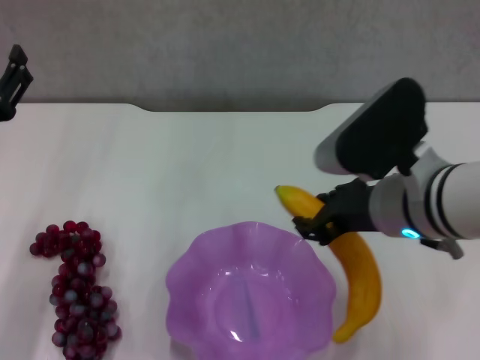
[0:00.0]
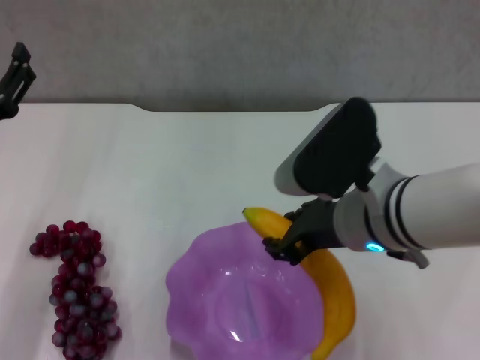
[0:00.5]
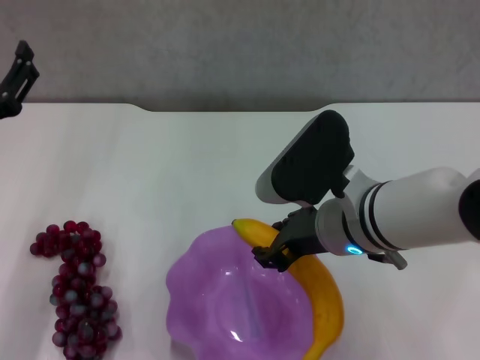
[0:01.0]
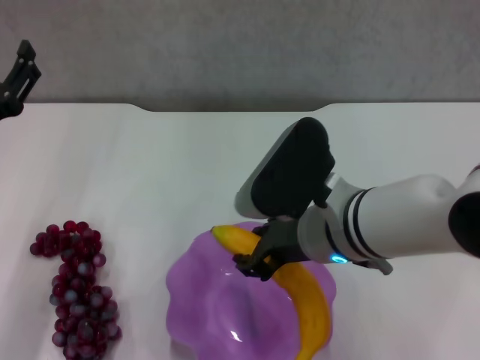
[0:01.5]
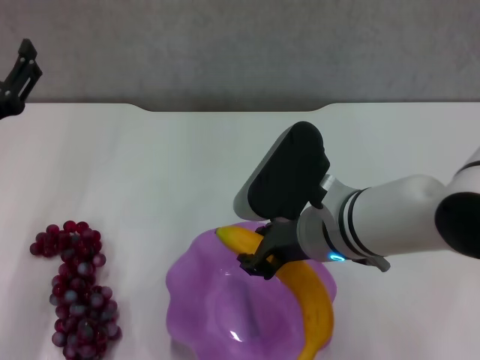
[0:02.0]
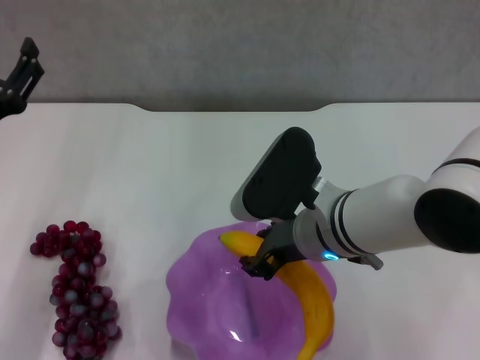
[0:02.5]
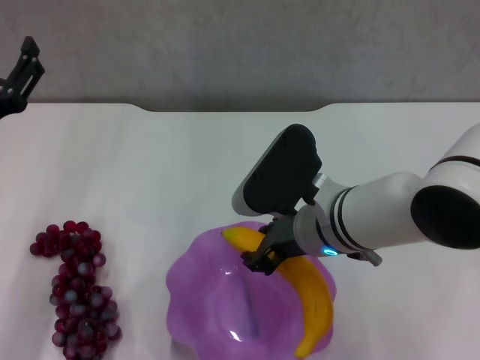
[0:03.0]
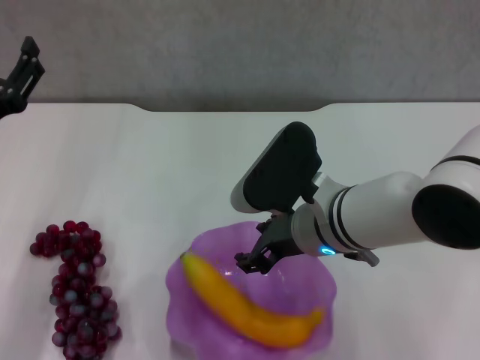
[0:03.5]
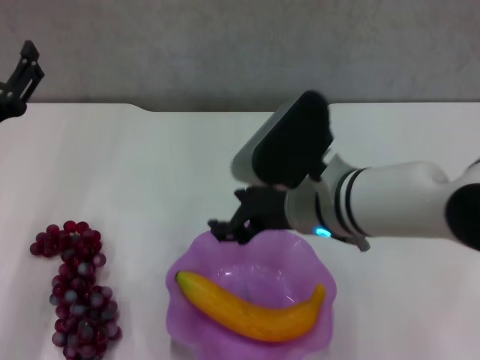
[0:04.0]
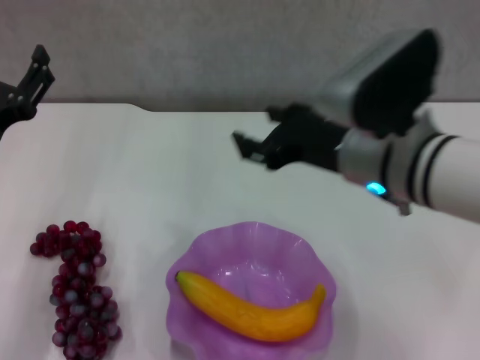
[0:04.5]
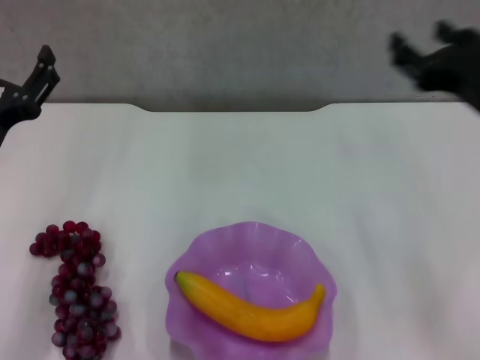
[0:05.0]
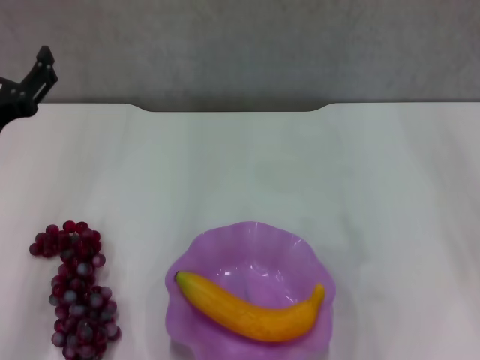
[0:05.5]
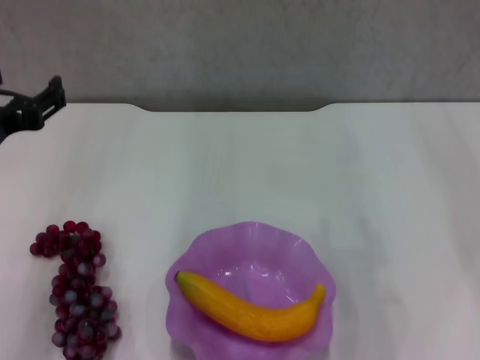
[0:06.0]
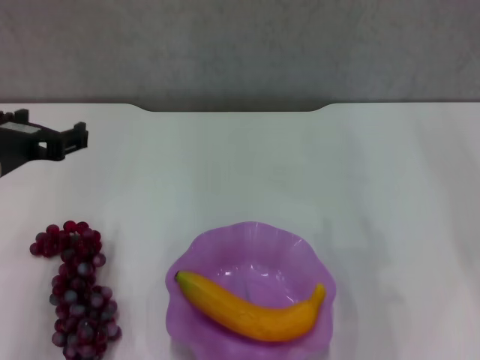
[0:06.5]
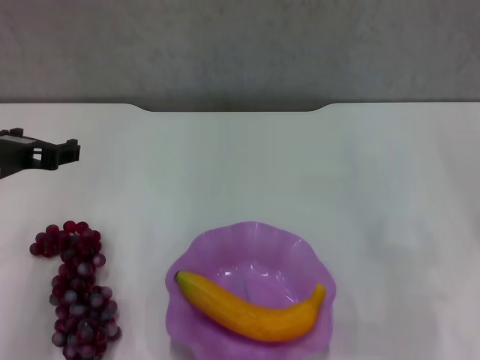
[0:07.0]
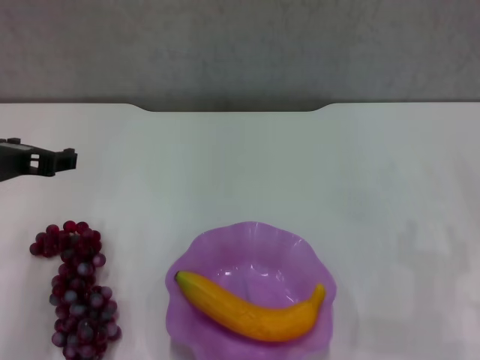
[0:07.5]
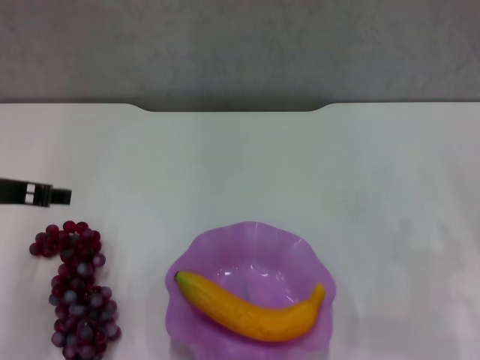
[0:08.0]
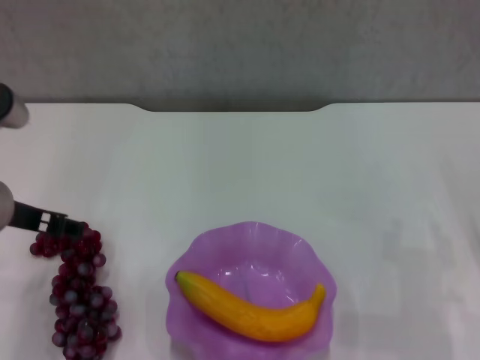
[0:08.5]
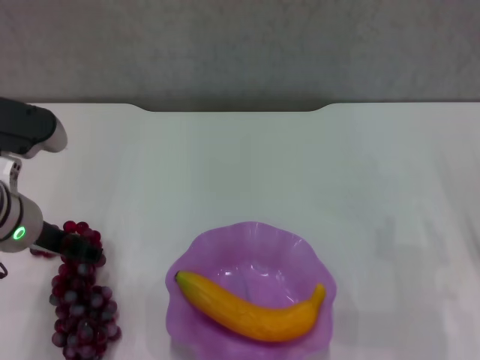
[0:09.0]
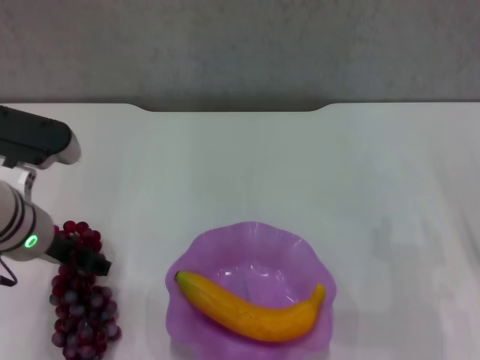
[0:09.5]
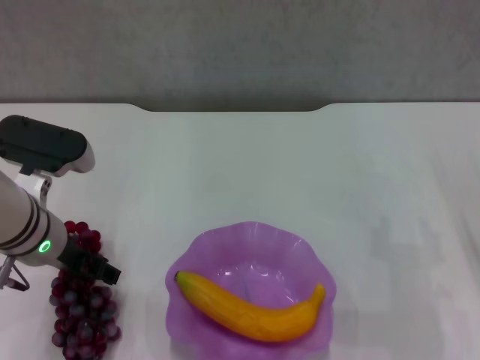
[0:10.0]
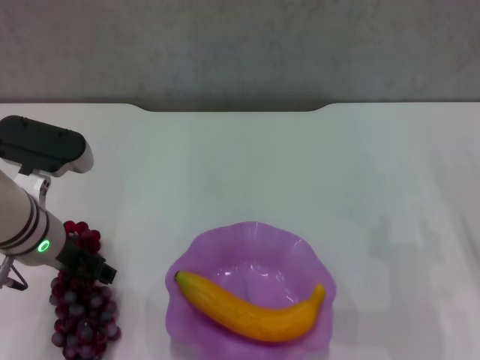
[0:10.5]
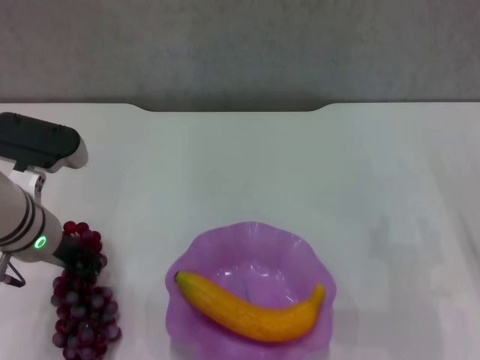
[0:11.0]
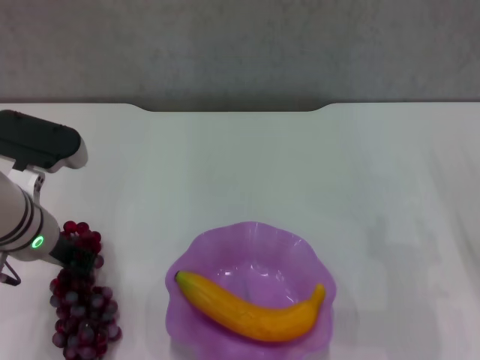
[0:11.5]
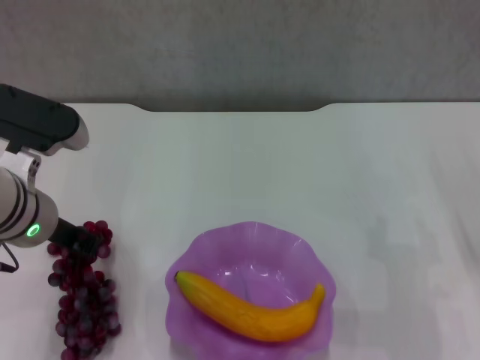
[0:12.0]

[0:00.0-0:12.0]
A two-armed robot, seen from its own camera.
Step, 0:00.0 to 0:03.5: Place the banana in the purple plate with right gripper.
Step, 0:04.0 to 0:11.5: Grasp the grape with left gripper.
0:00.0 to 0:02.0: The right gripper travels to the left by approximately 5 cm.
0:02.0 to 0:04.0: The right gripper opens.
0:04.0 to 0:06.0: The right gripper shifts roughly 25 cm to the right, while the left gripper heads upward, covering about 5 cm.
0:08.0 to 0:10.0: The left gripper heads downward, covering about 5 cm.
0:10.0 to 0:12.0: The left gripper closes up.

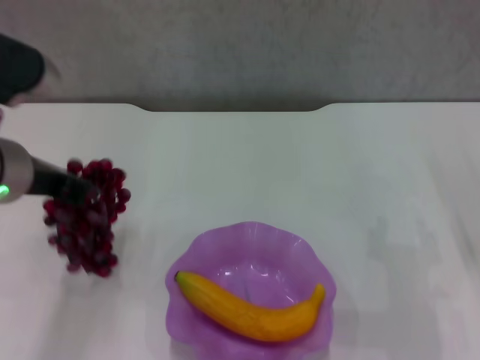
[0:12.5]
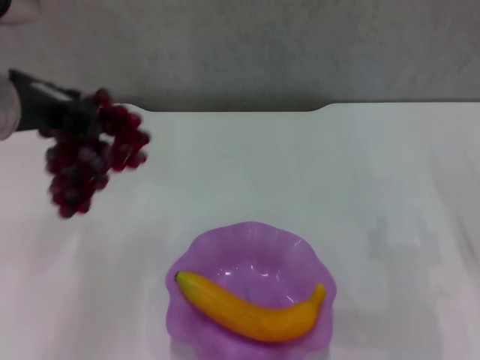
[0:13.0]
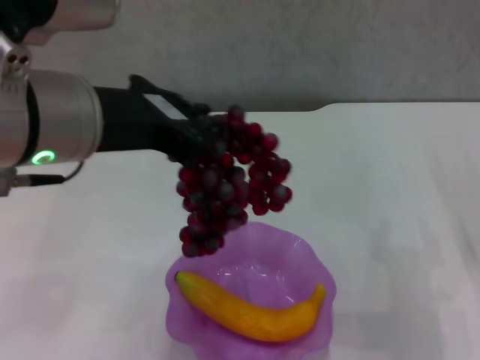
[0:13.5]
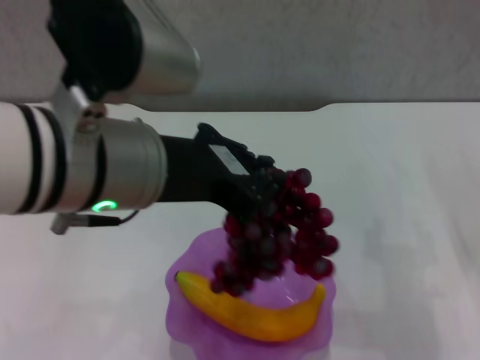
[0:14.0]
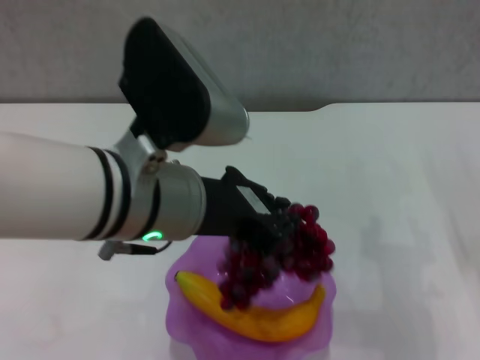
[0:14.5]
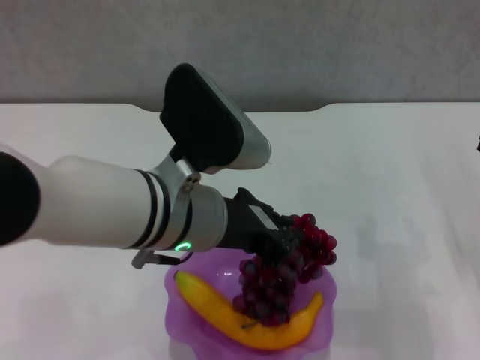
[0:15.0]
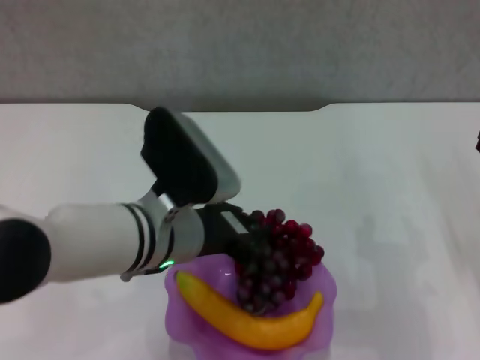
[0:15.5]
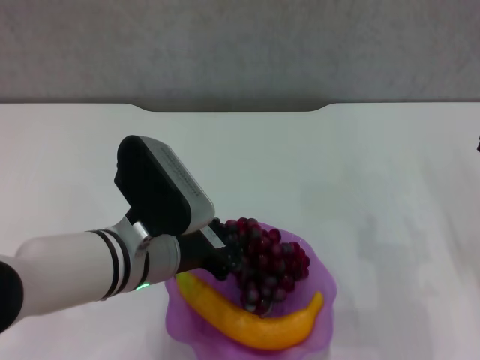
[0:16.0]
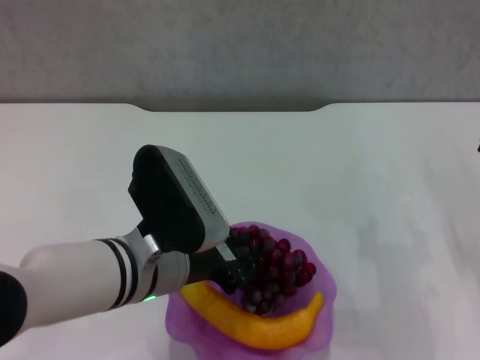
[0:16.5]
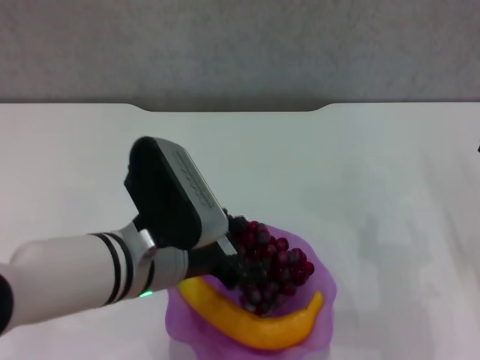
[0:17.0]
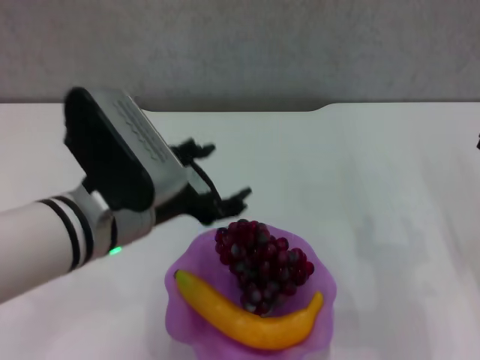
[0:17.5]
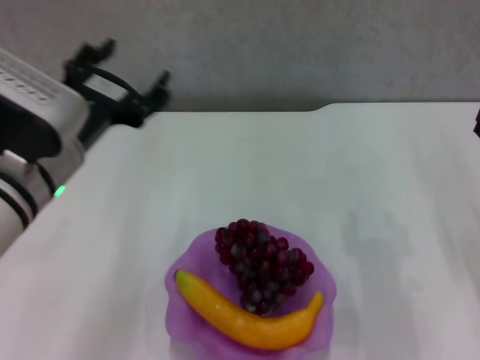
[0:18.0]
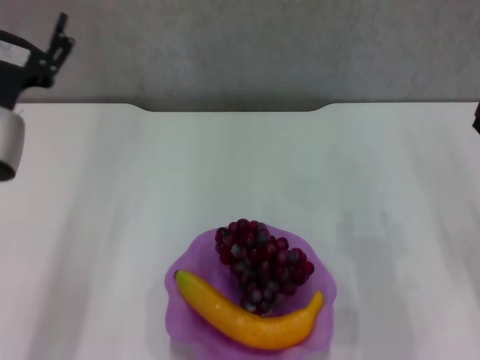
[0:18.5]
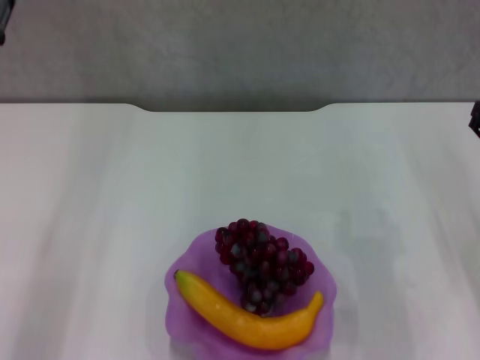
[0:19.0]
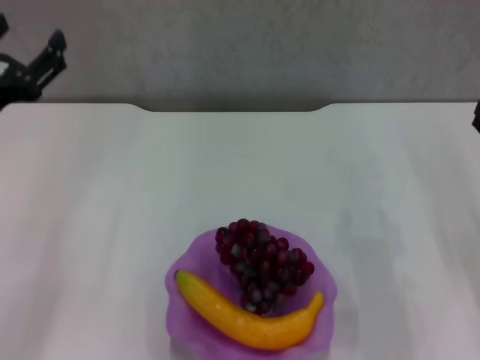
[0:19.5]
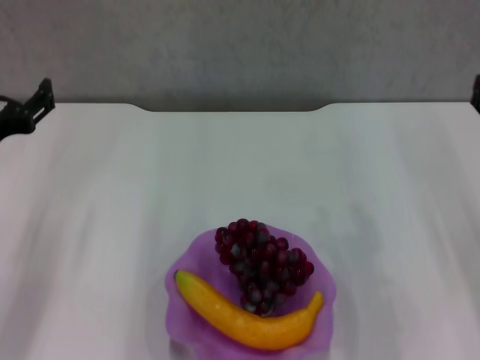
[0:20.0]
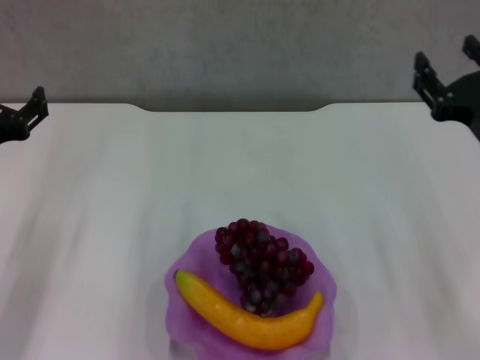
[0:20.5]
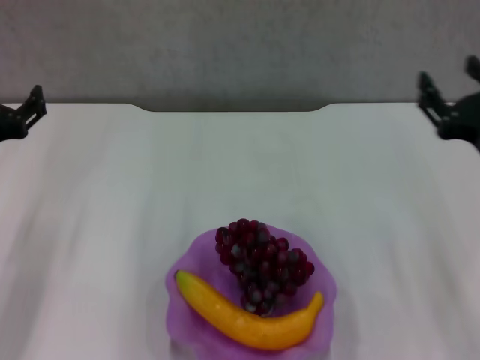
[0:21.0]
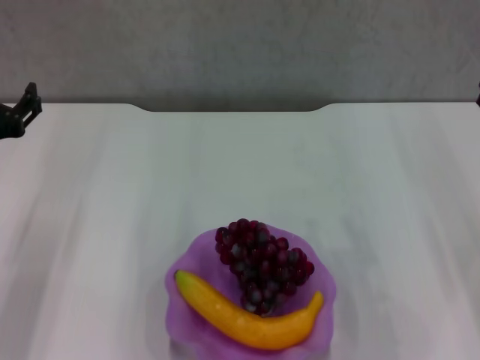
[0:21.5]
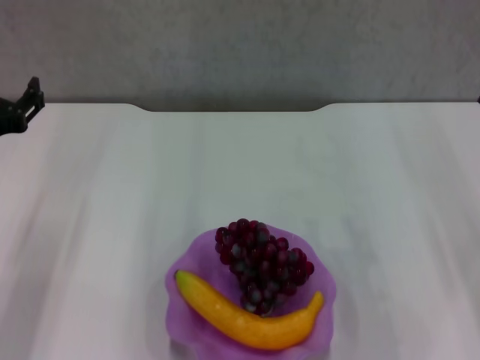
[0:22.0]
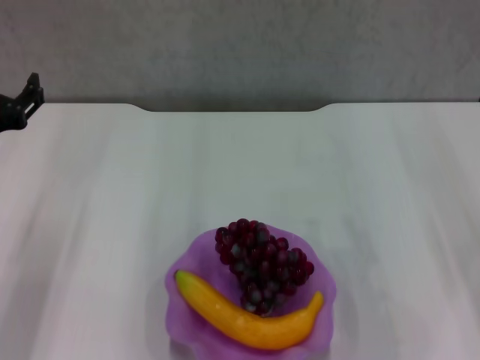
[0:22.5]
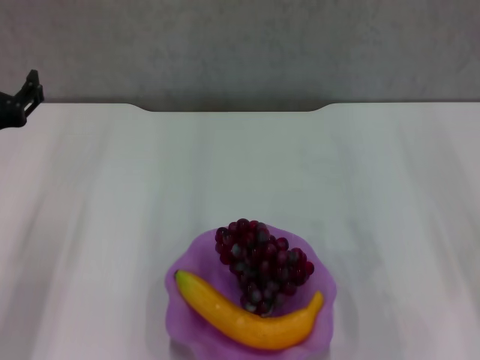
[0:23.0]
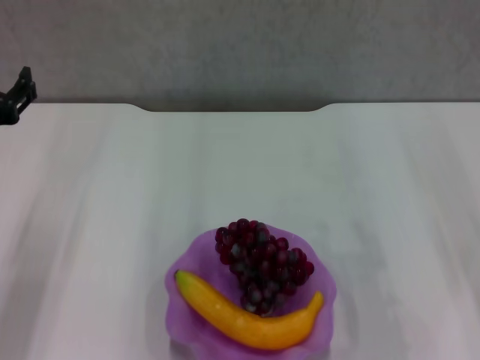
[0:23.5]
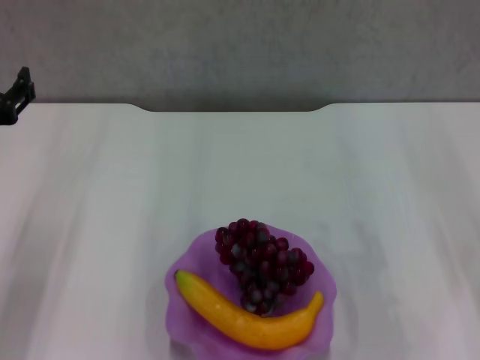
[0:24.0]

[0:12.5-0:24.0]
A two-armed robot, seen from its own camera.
Step, 0:12.5 to 0:17.0: Place the grape in the purple plate with left gripper.
0:12.5 to 0:14.5: The left gripper travels to the right by approximately 10 cm.
0:14.5 to 0:16.5: The left gripper shifts roughly 10 cm downward.
0:16.5 to 0:18.5: The left gripper shifts some 15 cm to the left and upward, and opens up.
0:18.5 to 0:20.0: The left gripper is displaced to the left by about 5 cm.
0:22.0 to 0:24.0: Both grippers stay about where they are.
